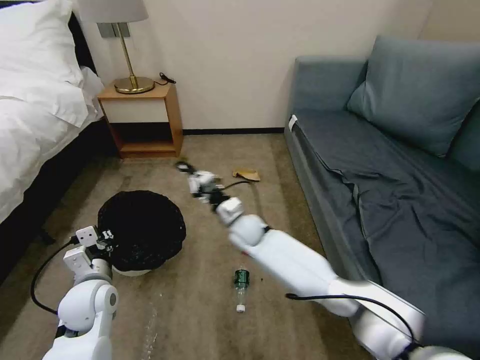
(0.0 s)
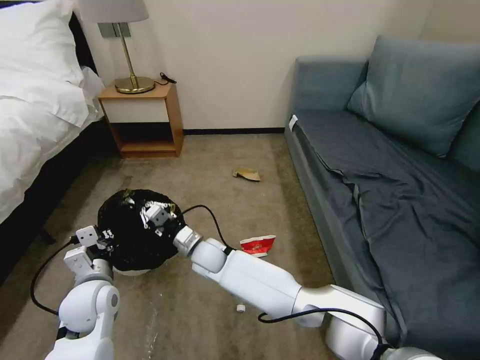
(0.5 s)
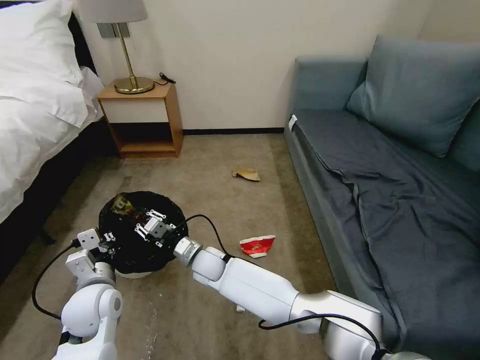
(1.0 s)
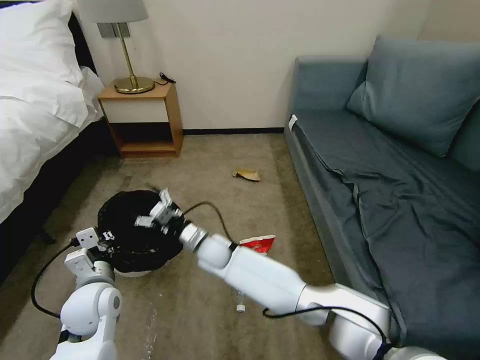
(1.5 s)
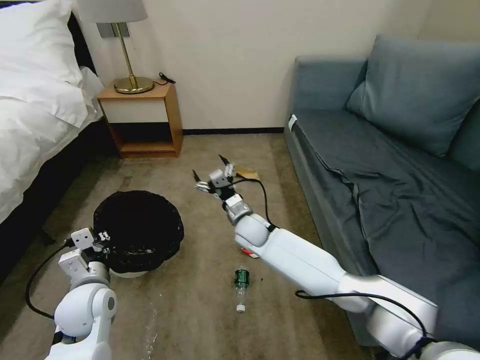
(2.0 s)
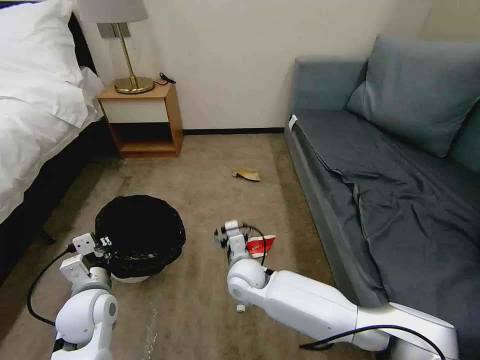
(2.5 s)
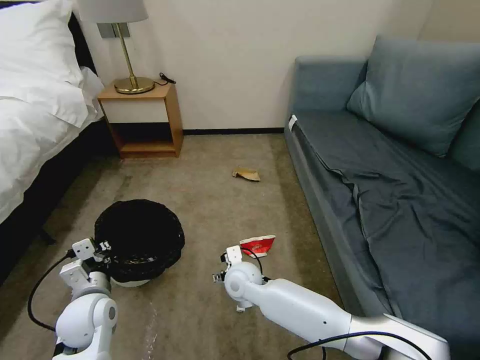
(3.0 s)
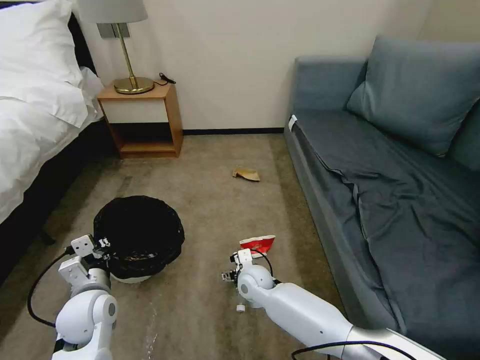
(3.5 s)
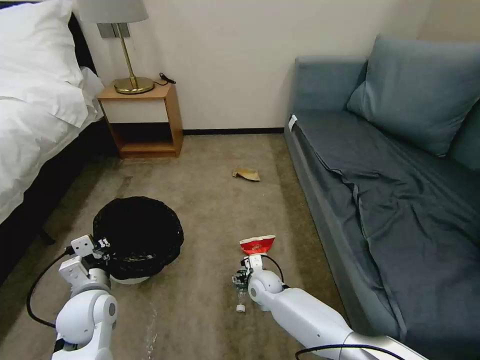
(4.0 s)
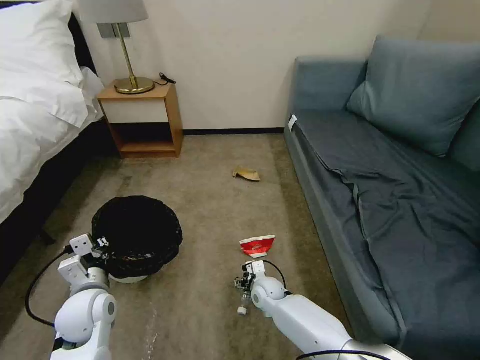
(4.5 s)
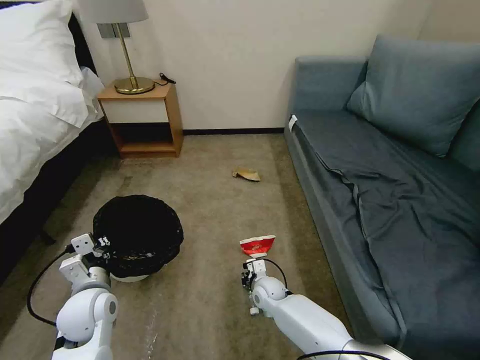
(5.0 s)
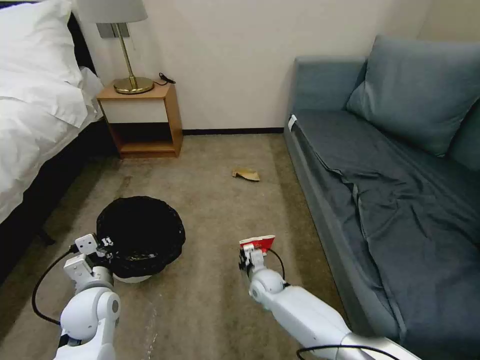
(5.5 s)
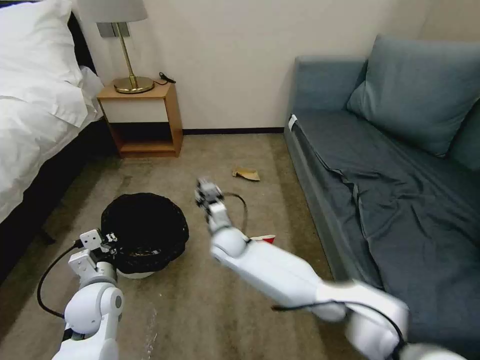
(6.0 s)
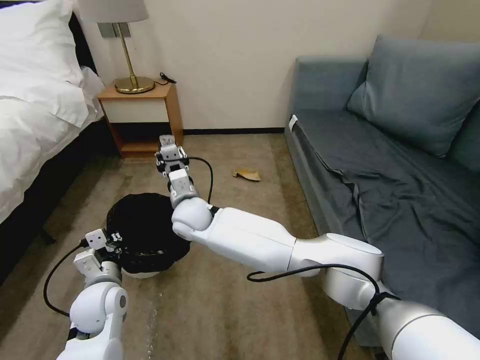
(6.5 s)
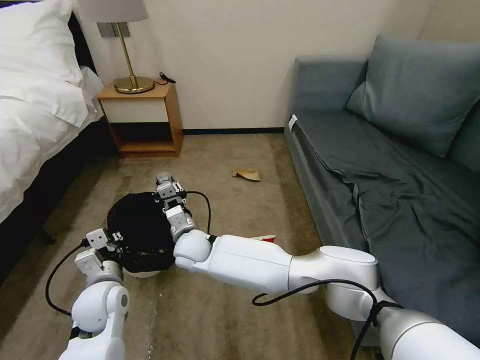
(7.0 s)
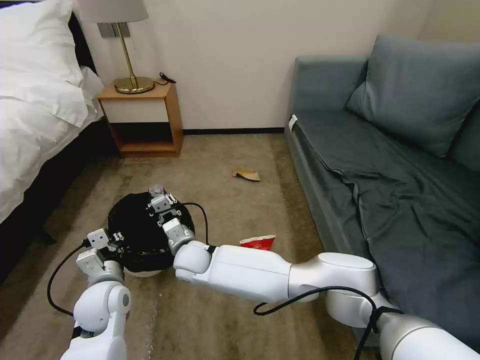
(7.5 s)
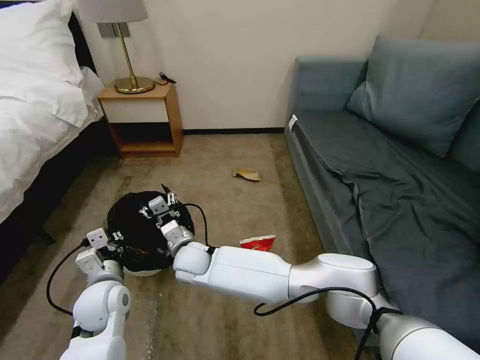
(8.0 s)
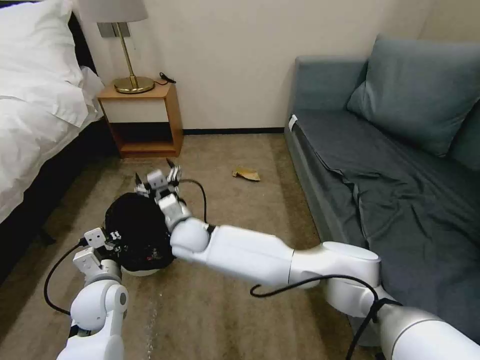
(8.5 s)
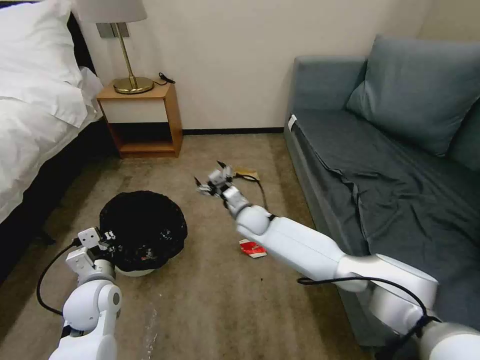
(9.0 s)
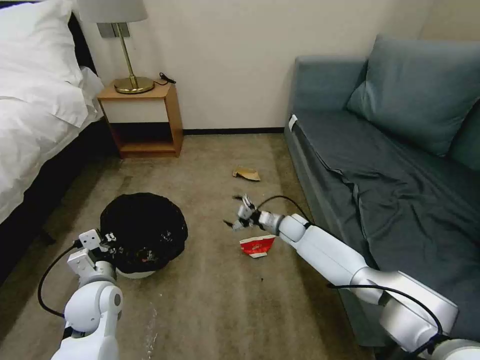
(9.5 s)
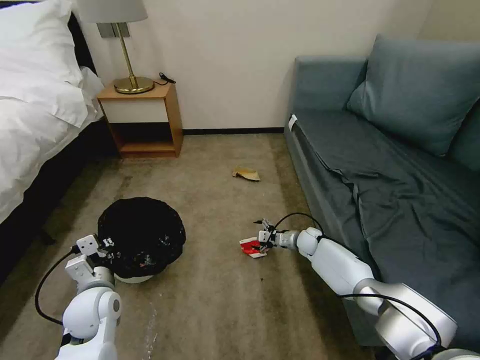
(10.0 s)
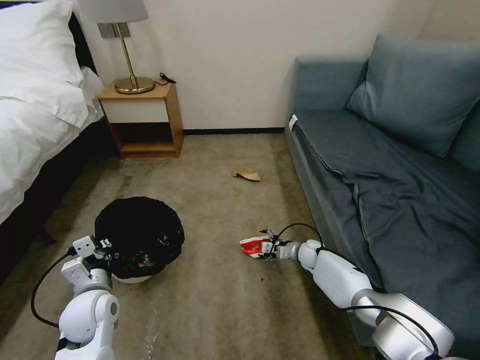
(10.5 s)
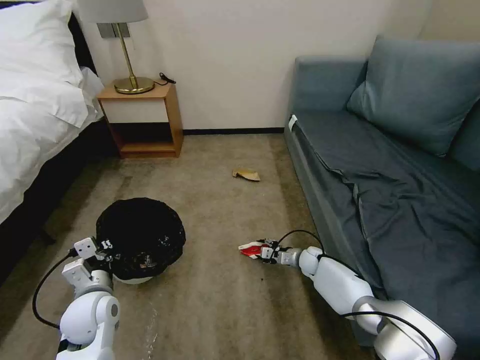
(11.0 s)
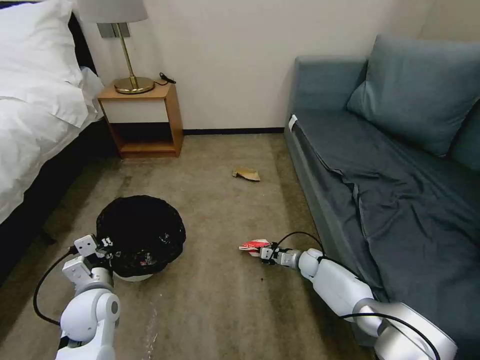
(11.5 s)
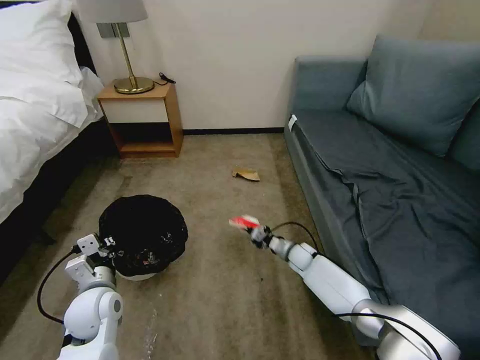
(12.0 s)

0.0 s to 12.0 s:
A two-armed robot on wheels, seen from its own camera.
Task of the whole recording: Pick up the trash bin, then pick up the garbage on the floor and place it into the trash bin.
0.0 to 2.0 s: The right gripper moves about 10 cm to the left and comes back, and opens.
2.0 to 4.0 s: The right gripper moves downward and backward, approximately 20 cm.
4.0 to 6.0 s: The right gripper travels upward and to the left by roughly 10 cm, and closes its fingers.
6.0 to 8.0 s: The right gripper travels to the left by about 15 cm, reaches about 15 cm upward, then returns, and opens up.
8.0 to 10.0 s: The right gripper goes approximately 35 cm to the right.
10.0 to 12.0 s: The right gripper moves roughly 5 cm, and closes its fingers.

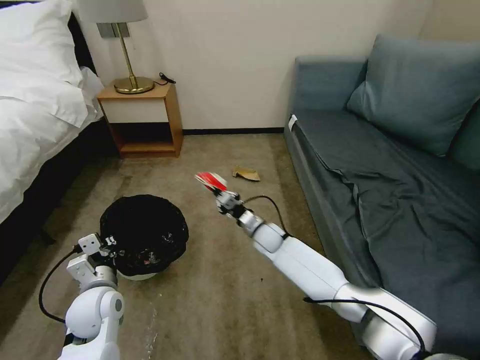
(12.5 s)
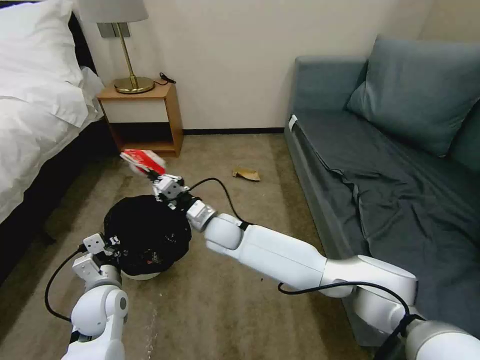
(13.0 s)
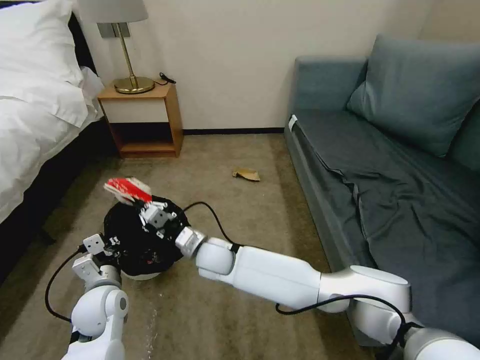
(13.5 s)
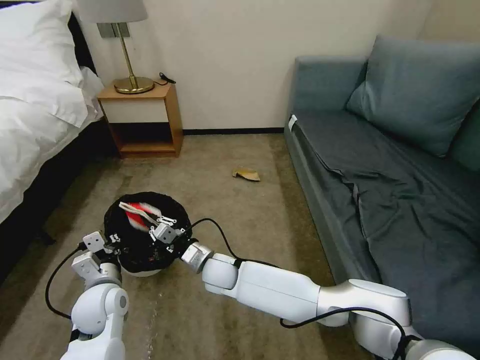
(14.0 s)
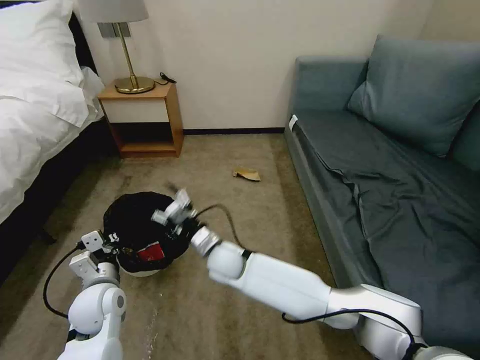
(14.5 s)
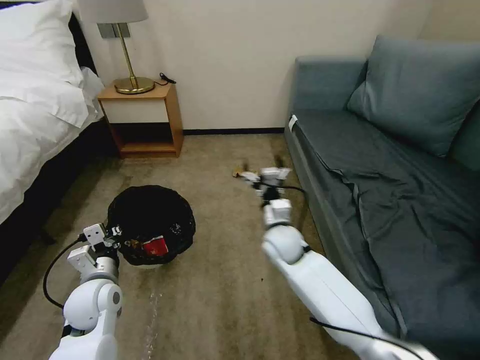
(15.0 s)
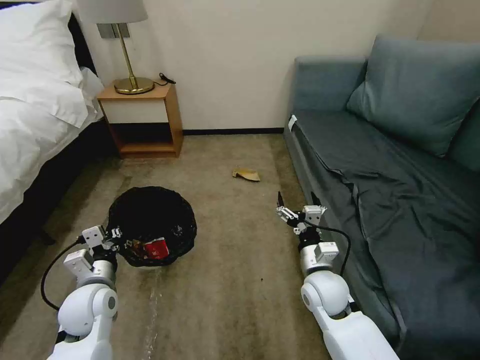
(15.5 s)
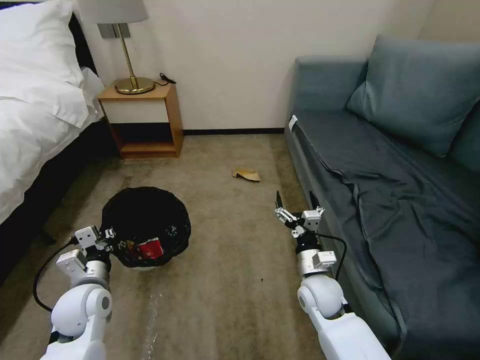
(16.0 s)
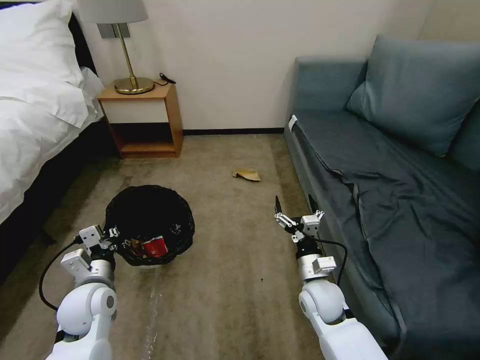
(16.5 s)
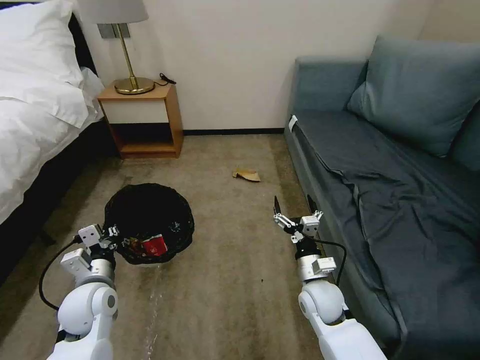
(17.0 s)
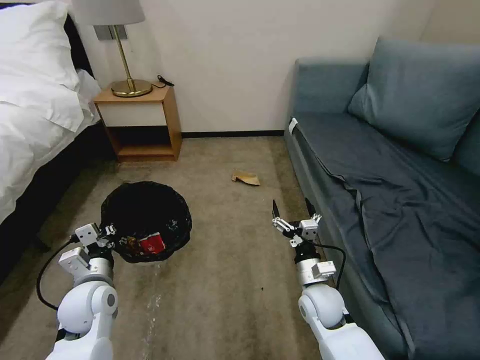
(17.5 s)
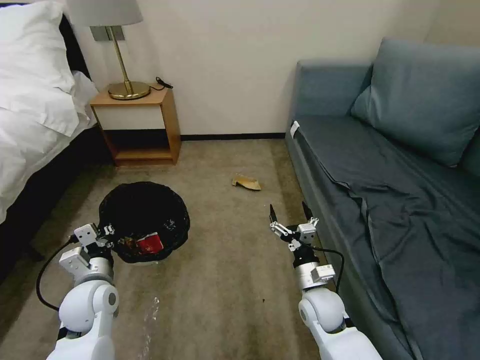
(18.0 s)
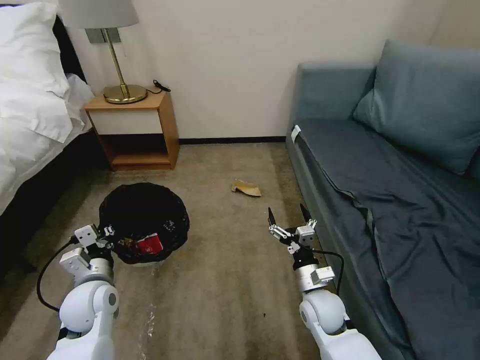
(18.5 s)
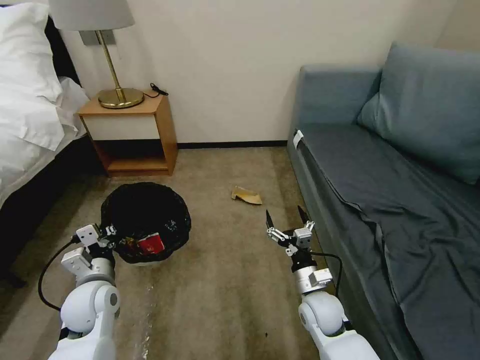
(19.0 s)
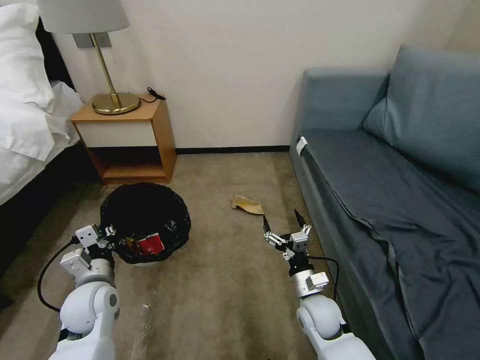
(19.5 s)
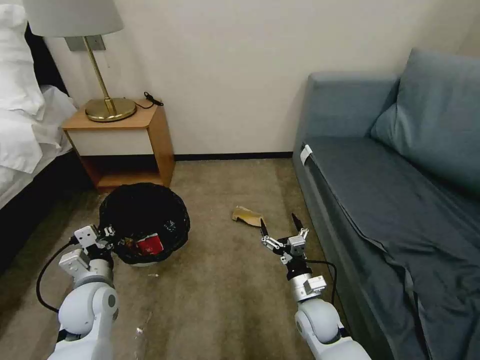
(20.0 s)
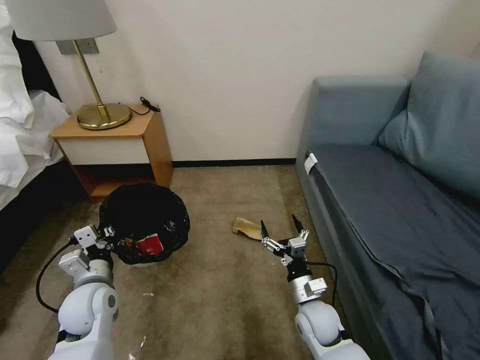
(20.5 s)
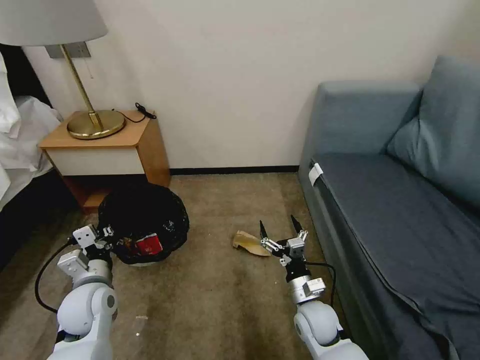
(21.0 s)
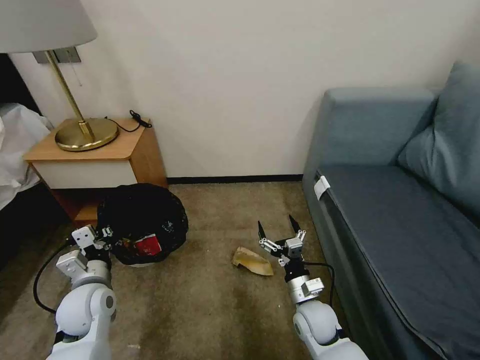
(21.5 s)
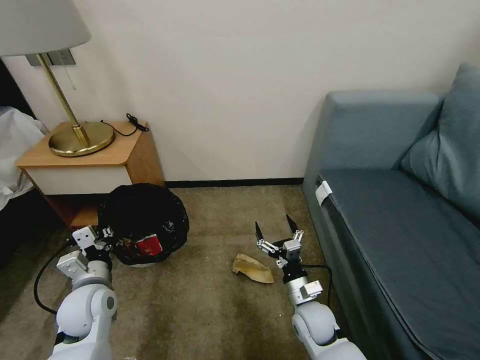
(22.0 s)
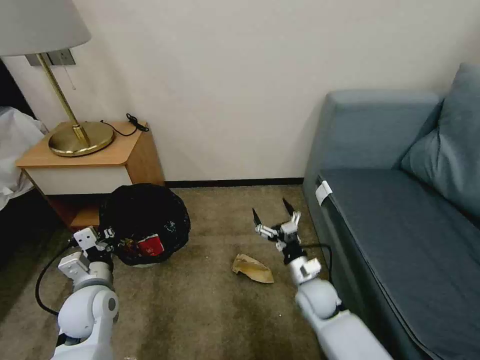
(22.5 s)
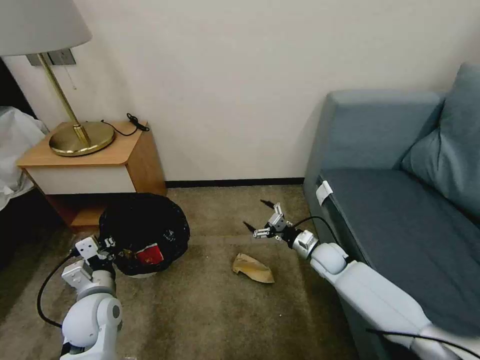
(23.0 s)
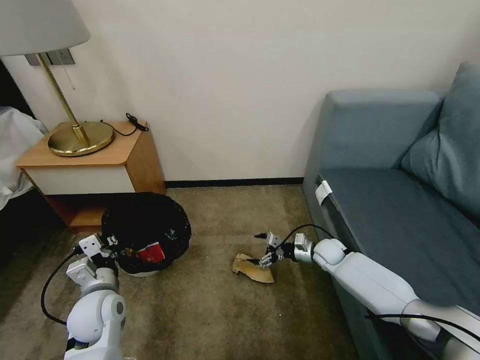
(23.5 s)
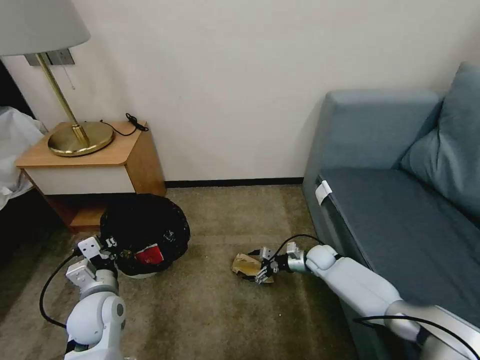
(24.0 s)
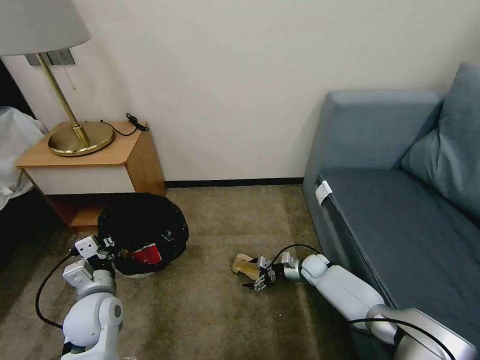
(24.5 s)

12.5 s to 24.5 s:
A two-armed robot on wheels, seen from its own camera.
Task of the whole recording: Pick up the trash bin, then pick up the garbage on the floor and place it into the trash bin.
12.5 to 14.5 s: The right gripper goes some 20 cm to the left, backward and upward, and opens.
14.5 to 16.5 s: The right gripper travels to the right by approximately 25 cm.
22.5 to 24.5 s: The right gripper travels forward, downward and to the right by some 20 cm.

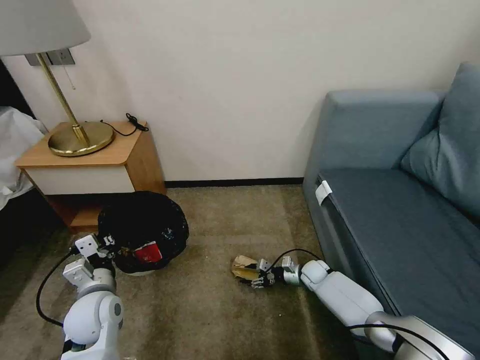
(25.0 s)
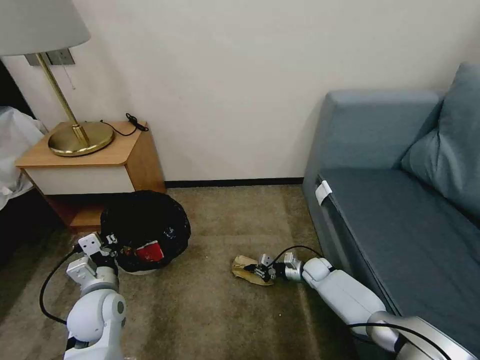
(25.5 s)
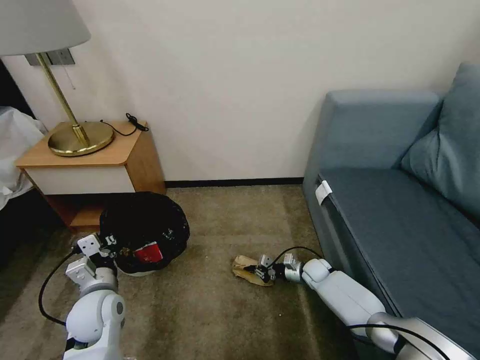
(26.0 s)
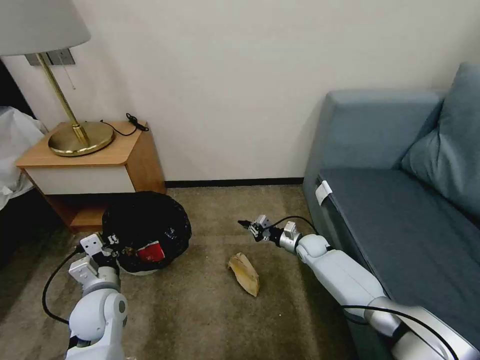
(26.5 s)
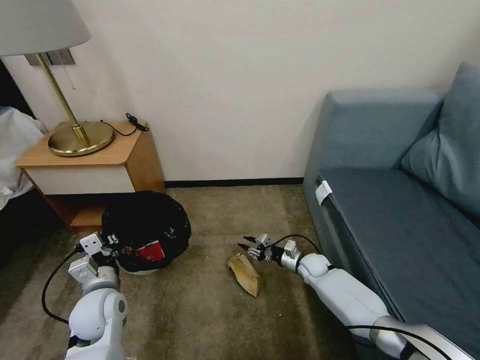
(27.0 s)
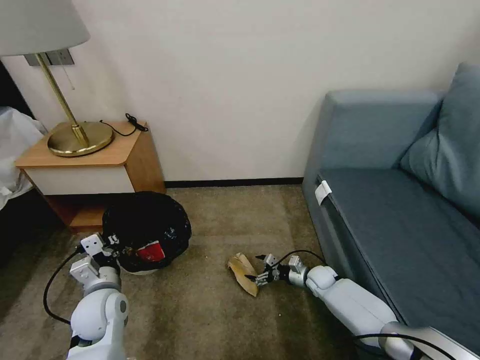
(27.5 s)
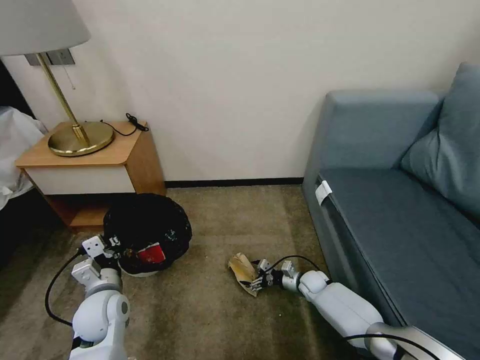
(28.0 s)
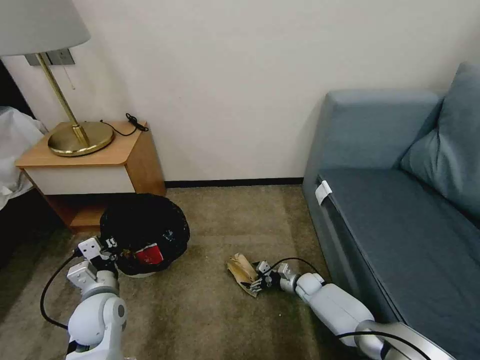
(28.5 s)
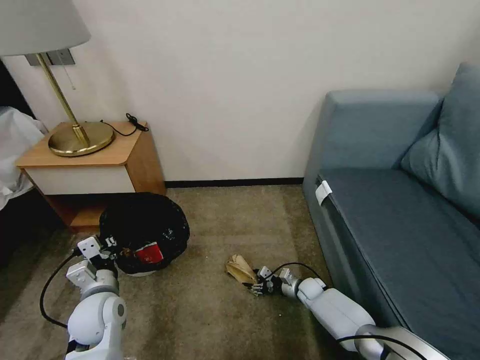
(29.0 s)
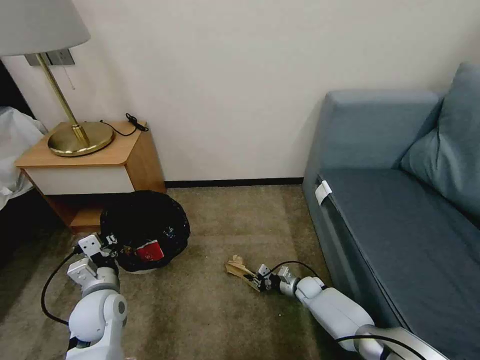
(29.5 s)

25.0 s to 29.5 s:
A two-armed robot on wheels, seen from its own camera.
Task of the whole recording: Pick up the trash bin, then pick up the garbage on the floor and place it into the trash bin.
27.0 to 29.5 s: The right gripper heads downward, covering about 10 cm, and opens, then closes once more.
